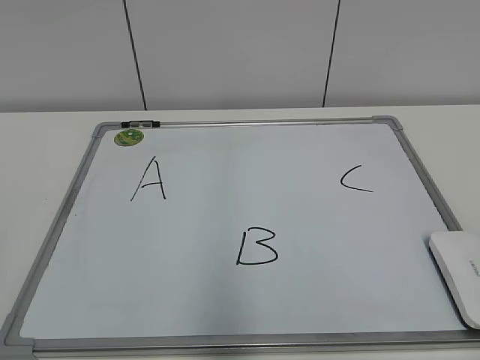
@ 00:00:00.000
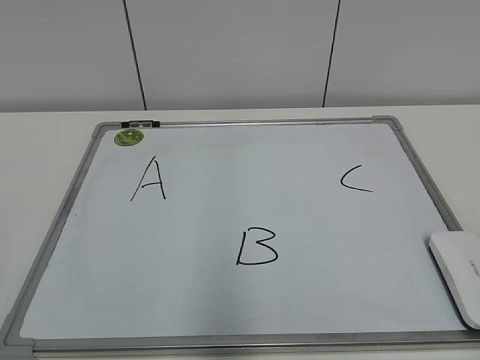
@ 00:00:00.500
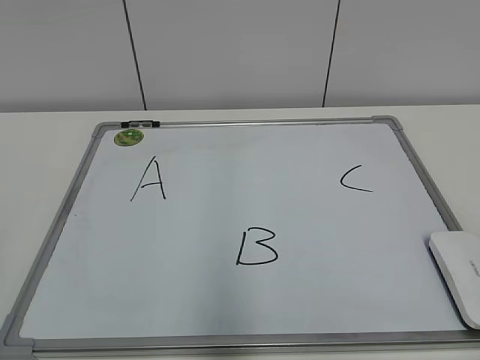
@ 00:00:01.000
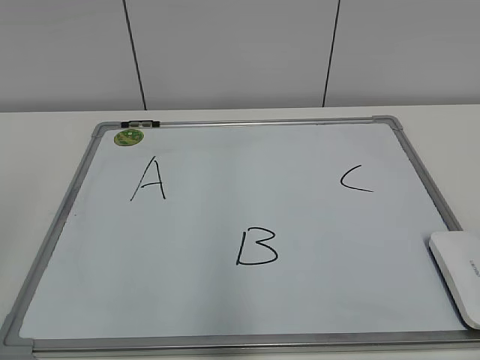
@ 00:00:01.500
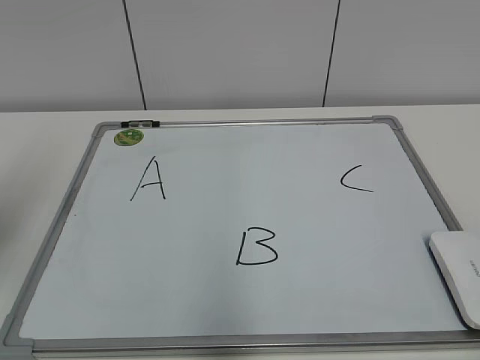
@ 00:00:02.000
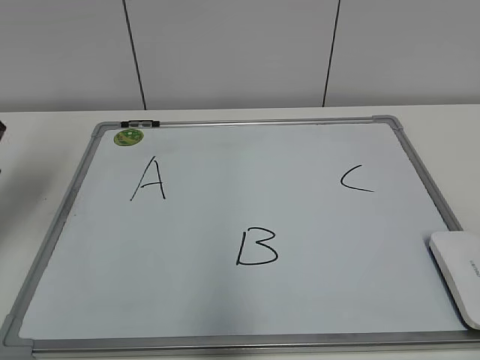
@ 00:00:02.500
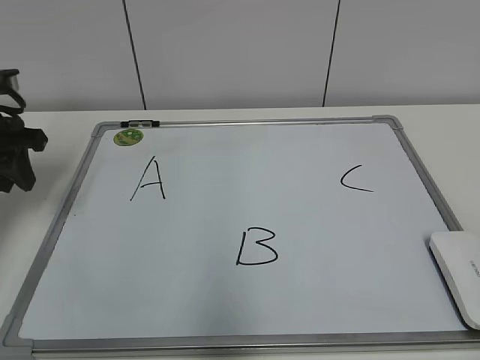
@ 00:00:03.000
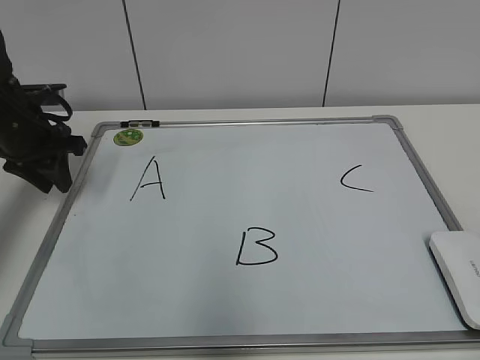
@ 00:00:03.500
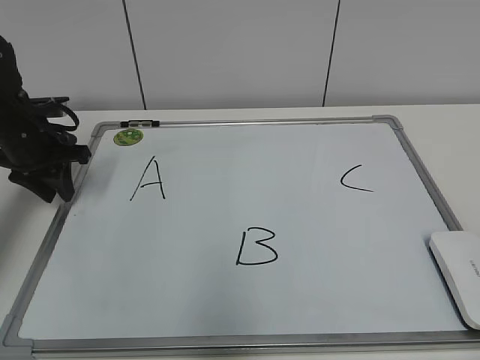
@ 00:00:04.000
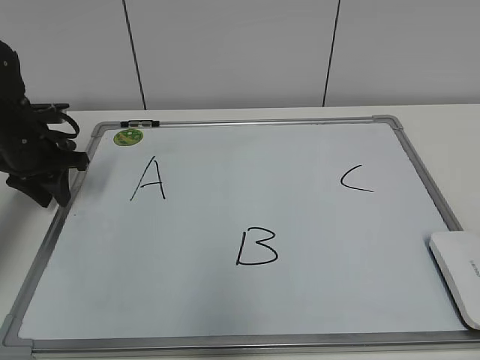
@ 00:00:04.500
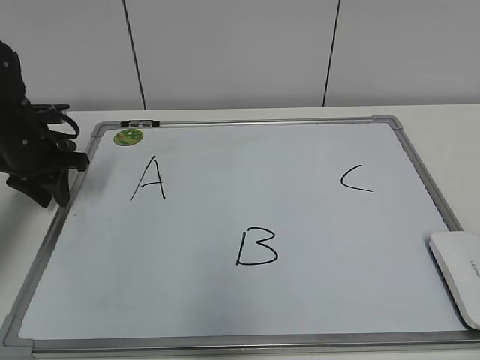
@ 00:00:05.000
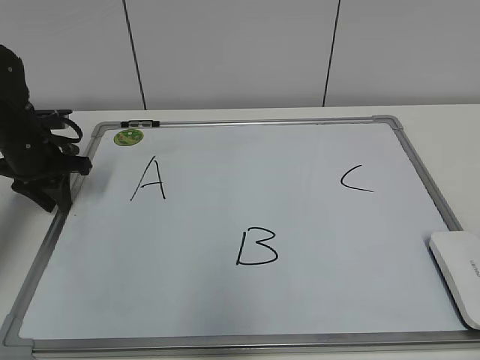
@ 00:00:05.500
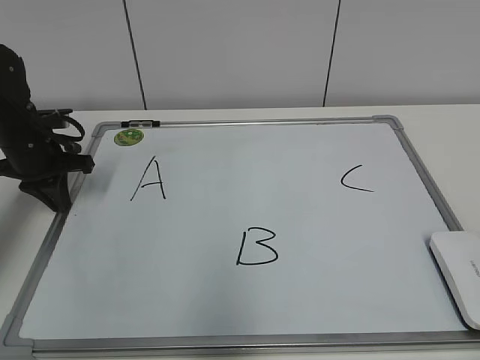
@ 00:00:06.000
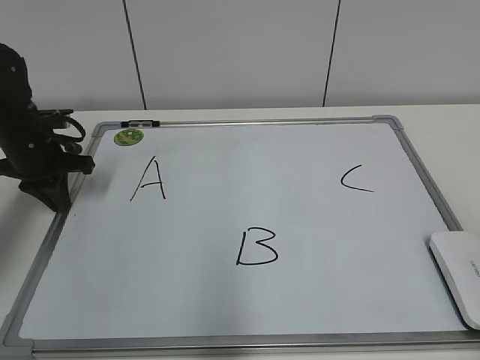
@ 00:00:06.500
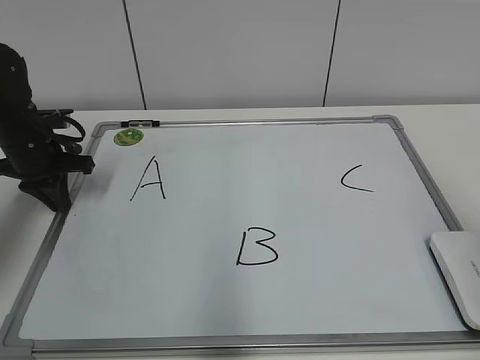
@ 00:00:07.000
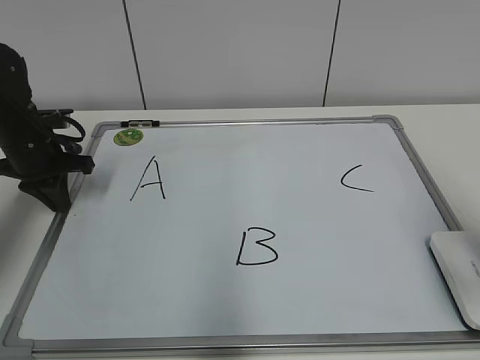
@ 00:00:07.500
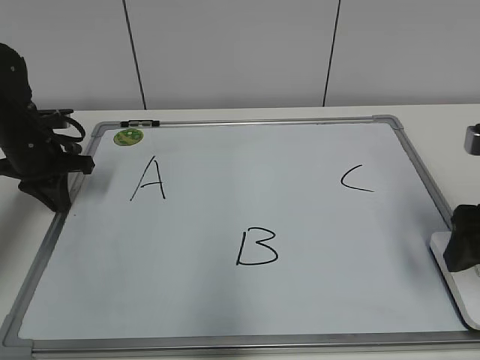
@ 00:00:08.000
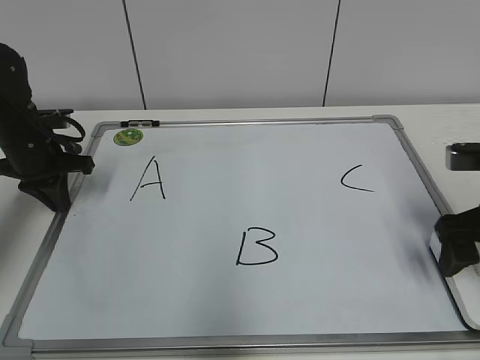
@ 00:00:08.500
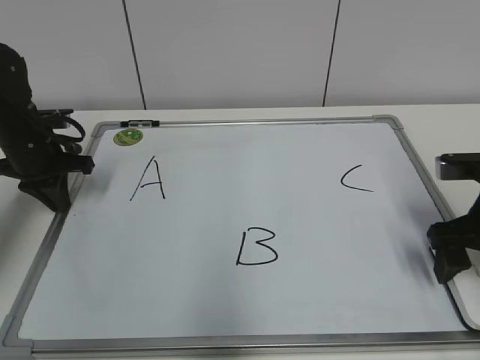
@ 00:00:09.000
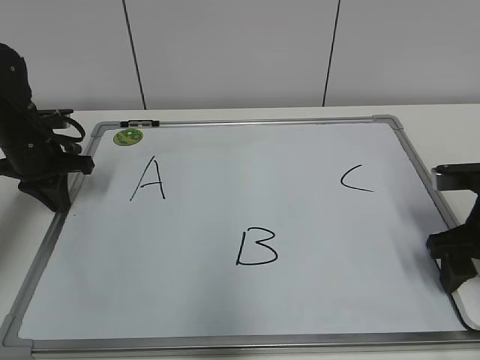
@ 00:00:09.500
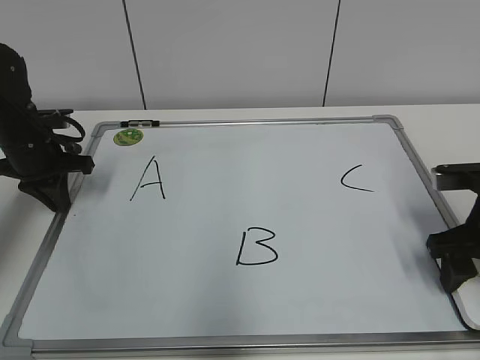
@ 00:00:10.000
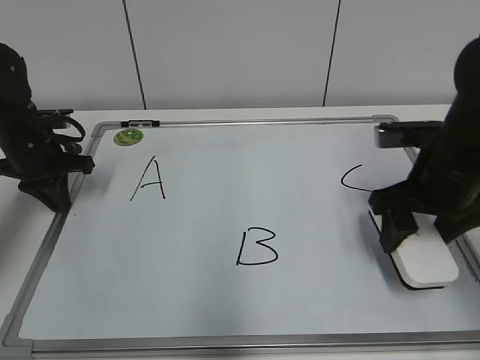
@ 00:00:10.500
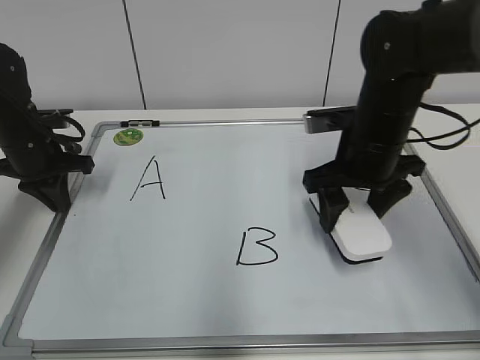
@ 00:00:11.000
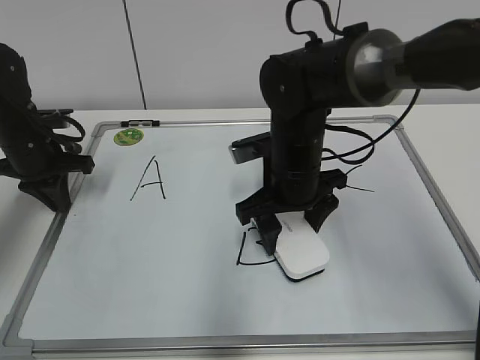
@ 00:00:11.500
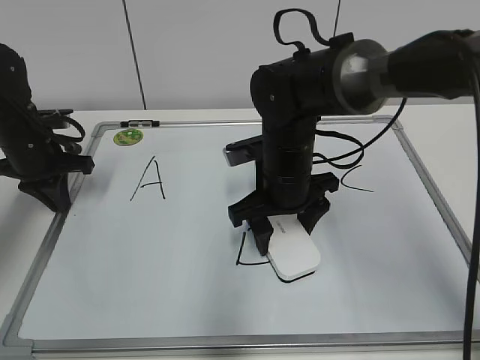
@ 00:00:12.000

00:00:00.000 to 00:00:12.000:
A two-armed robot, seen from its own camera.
Task of the whole recording: pick up the eraser on the blackboard and erase the letter "B".
Step, 00:00:00.000 to 00:00:05.500: Hold the drawing board steady with your left hand.
Step, 00:00:06.000 to 00:00:09.500: Grab the eraser with your right hand.
00:00:02.000 to 00:00:04.000: The left gripper moves forward and downward, some 25 cm.
00:00:04.000 to 00:00:06.000: The left gripper closes its fingers.
00:00:06.000 to 00:00:08.000: The right gripper shifts some 25 cm forward, and opens up.
00:00:08.000 to 00:00:10.000: The right gripper moves downward, roughly 5 cm, and closes its fingers.
00:00:10.000 to 00:00:12.000: The right gripper heads to the left, covering some 20 cm.

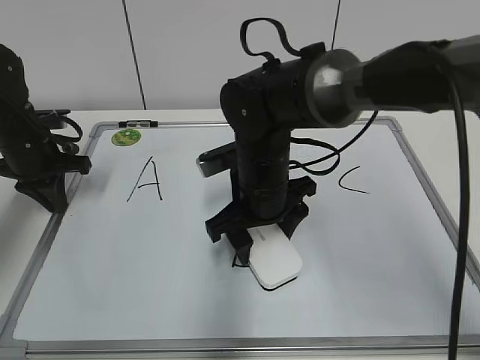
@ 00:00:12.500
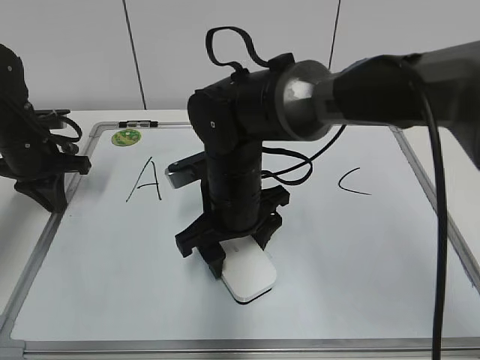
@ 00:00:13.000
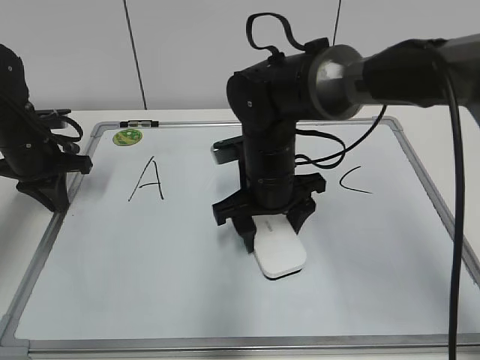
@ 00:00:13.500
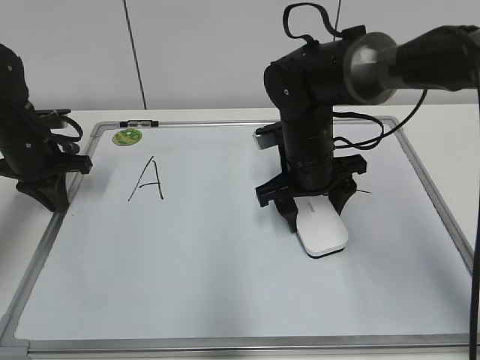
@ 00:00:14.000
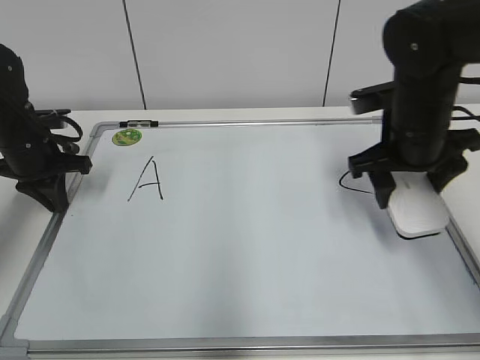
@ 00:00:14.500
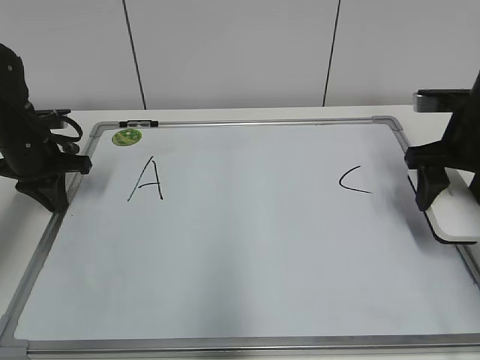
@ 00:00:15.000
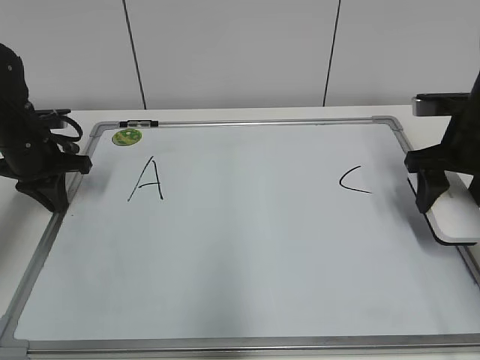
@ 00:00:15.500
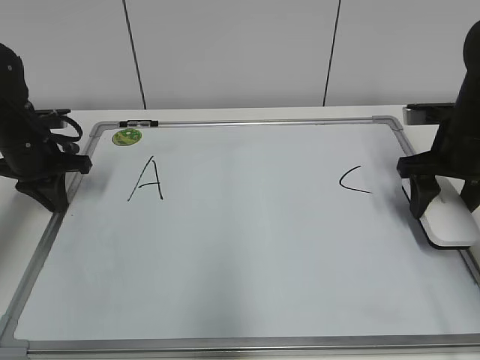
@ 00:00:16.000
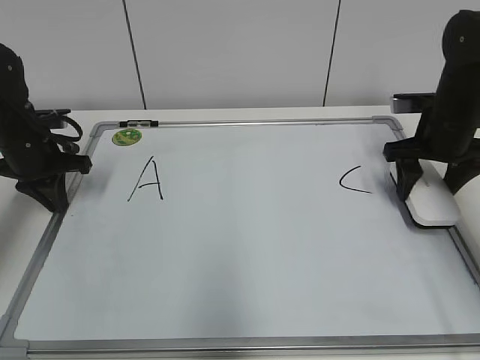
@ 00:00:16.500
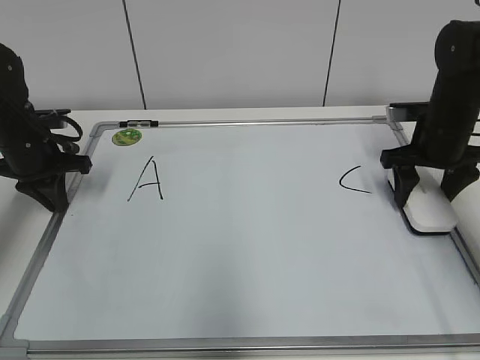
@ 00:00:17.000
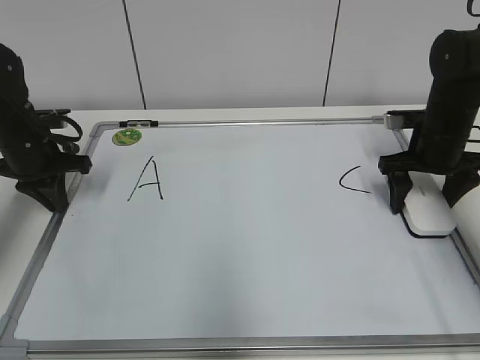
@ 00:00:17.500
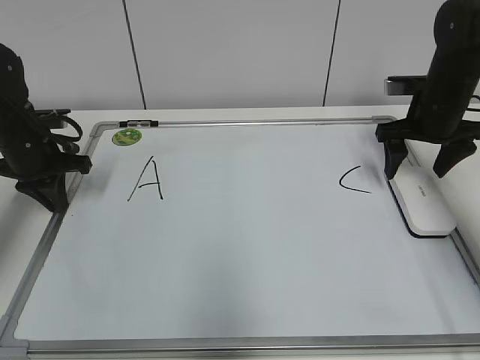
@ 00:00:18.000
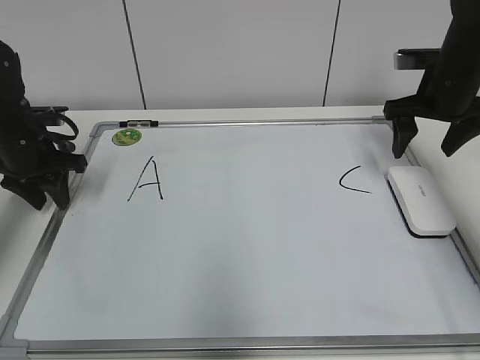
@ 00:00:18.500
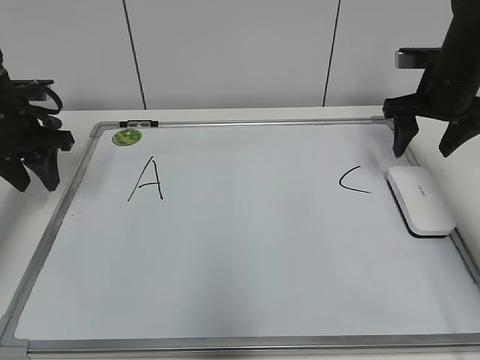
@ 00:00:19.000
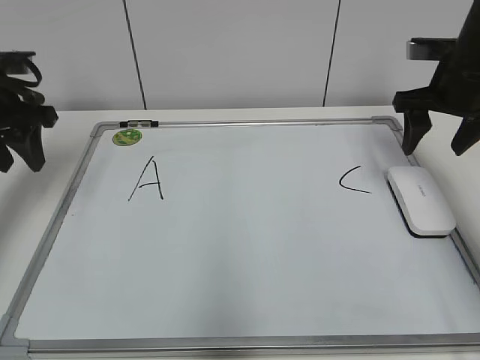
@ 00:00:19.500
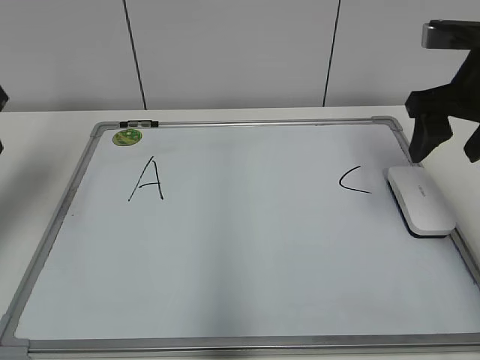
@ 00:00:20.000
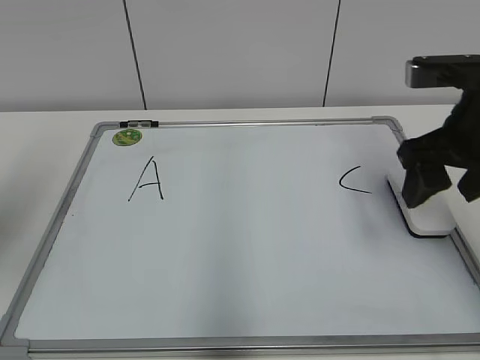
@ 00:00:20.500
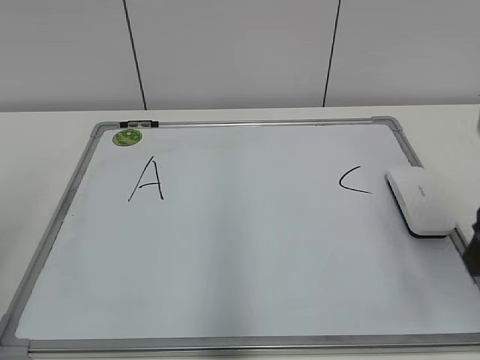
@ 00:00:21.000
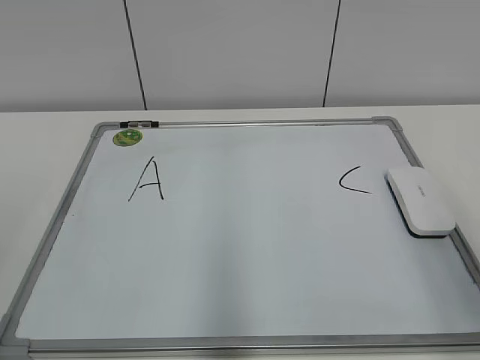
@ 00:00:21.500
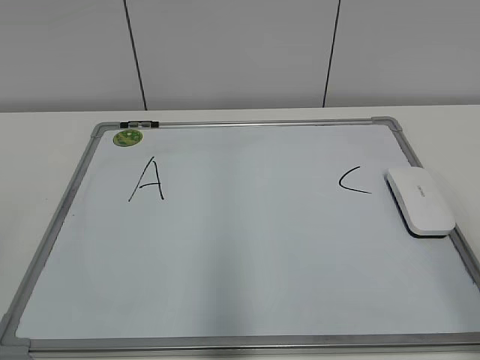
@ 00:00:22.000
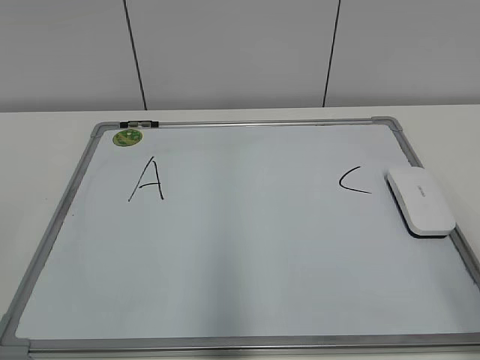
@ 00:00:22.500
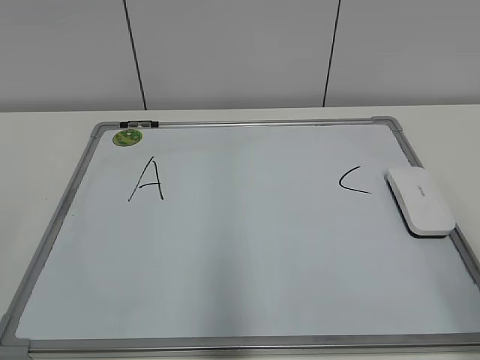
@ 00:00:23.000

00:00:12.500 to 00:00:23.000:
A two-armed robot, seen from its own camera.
Task of the whole recording: pick up the eraser on the blackboard and erase the letter "B".
Step, 00:00:14.500 to 00:00:17.000: Put down the eraser with your right hand.
00:00:12.500 to 00:00:14.500: The right gripper goes approximately 15 cm to the right.
00:00:14.500 to 00:00:16.500: The right gripper travels to the right and forward by about 10 cm.
00:00:16.500 to 00:00:19.000: The right gripper ends up some 5 cm from where it was, and opens up; the left gripper goes some 5 cm upward, and opens its fingers.
00:00:19.000 to 00:00:21.000: The two grippers go about 25 cm backward.
00:00:21.000 to 00:00:23.000: The right gripper goes some 15 cm backward.

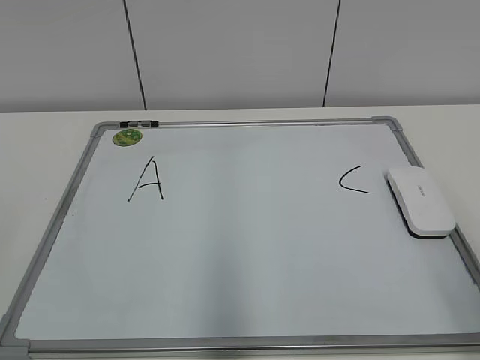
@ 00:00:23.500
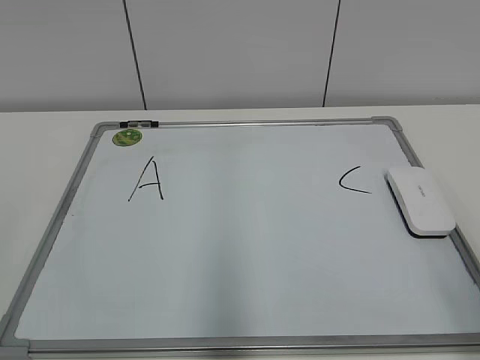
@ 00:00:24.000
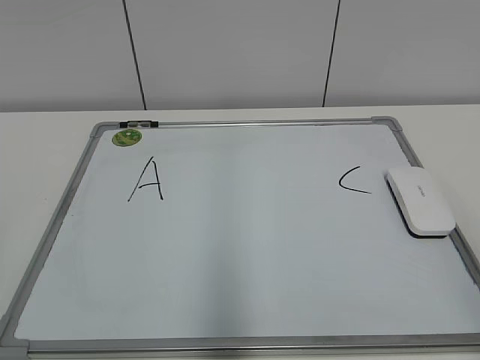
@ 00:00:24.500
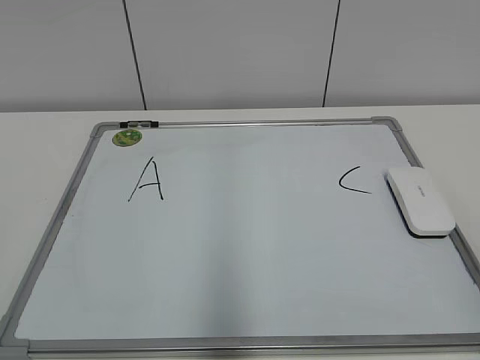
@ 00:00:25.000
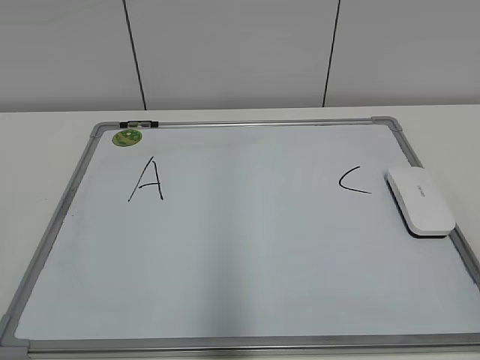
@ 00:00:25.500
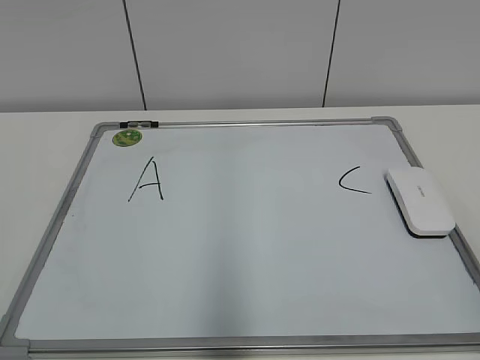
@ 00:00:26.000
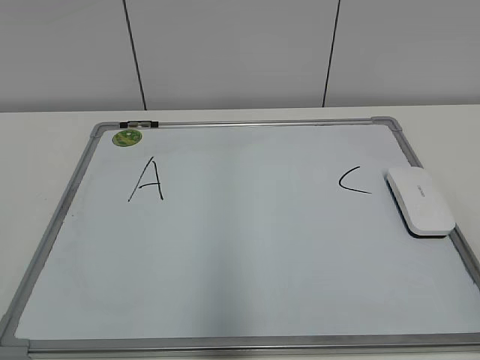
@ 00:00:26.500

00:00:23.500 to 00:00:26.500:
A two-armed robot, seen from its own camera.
Task of the whole recording: pick up the eraser on the blackboard and erase the letter "B".
00:00:25.000 to 00:00:26.500: Both grippers stay about where they are.
